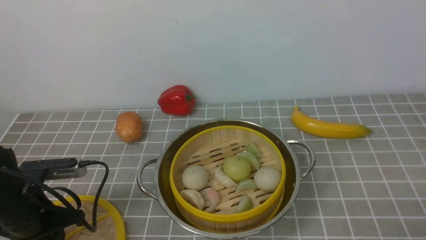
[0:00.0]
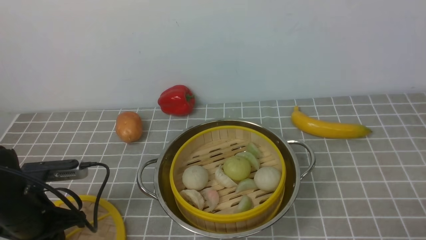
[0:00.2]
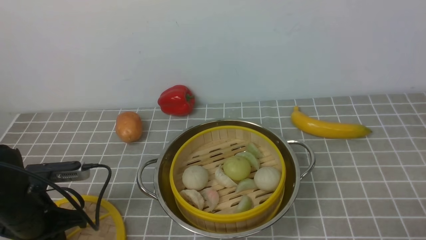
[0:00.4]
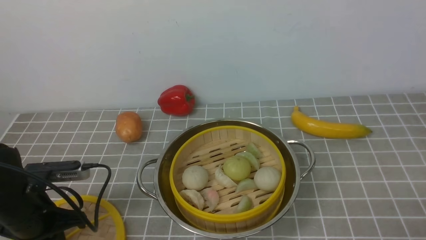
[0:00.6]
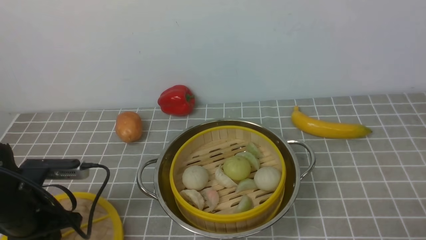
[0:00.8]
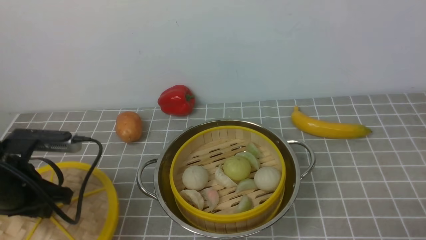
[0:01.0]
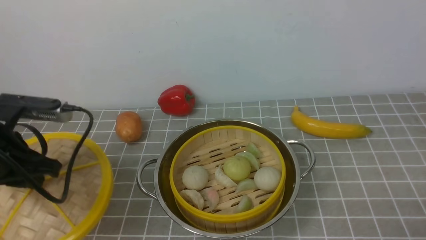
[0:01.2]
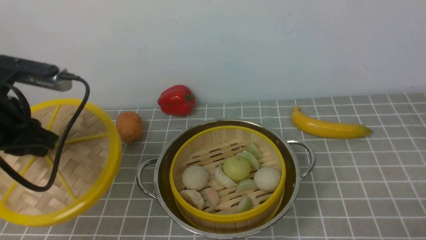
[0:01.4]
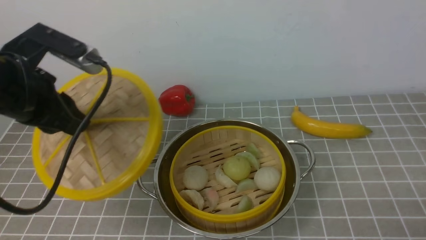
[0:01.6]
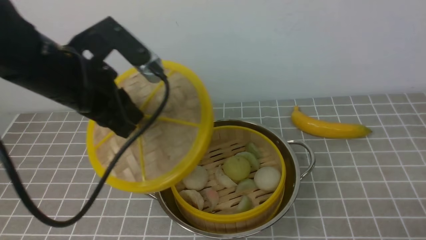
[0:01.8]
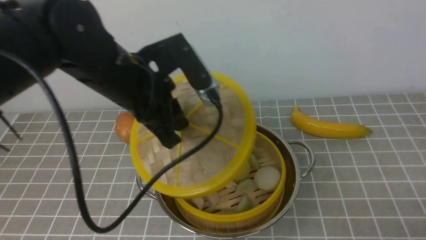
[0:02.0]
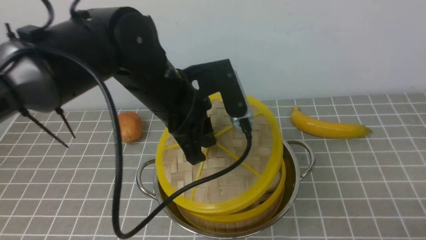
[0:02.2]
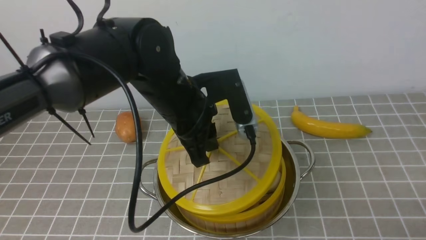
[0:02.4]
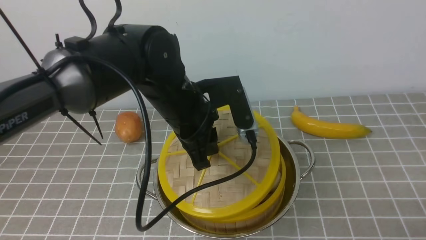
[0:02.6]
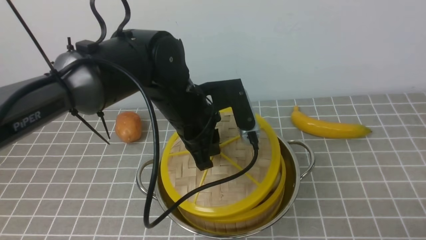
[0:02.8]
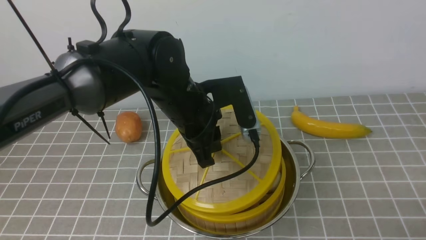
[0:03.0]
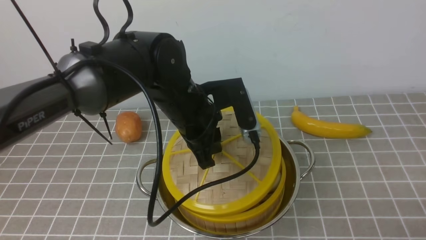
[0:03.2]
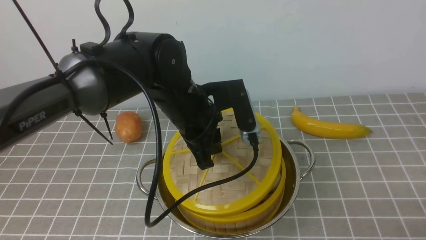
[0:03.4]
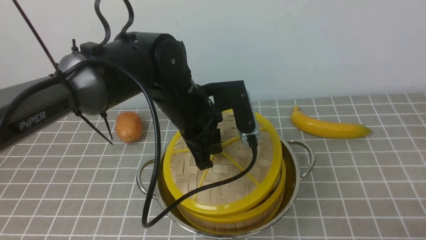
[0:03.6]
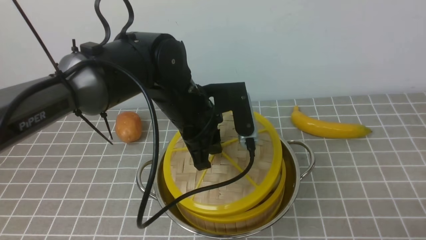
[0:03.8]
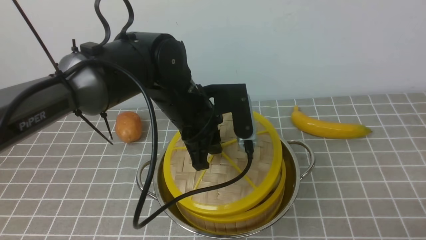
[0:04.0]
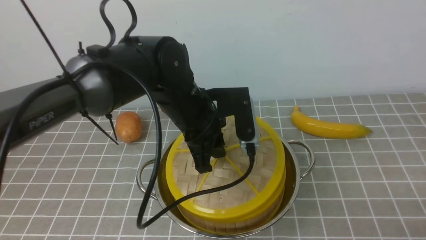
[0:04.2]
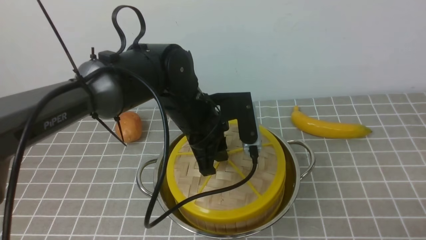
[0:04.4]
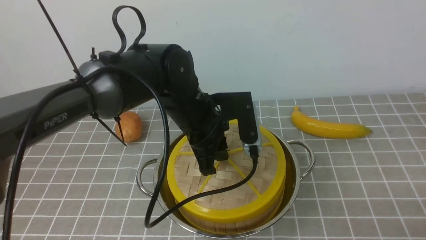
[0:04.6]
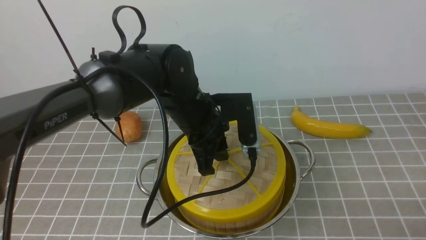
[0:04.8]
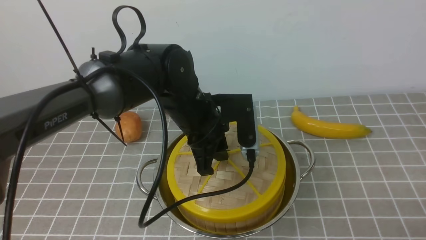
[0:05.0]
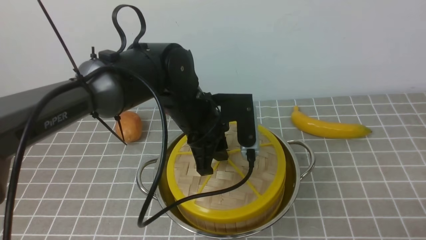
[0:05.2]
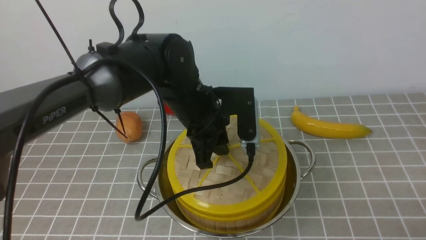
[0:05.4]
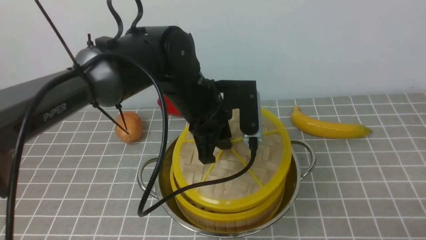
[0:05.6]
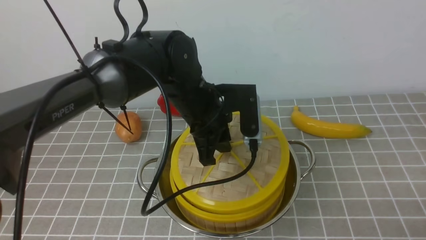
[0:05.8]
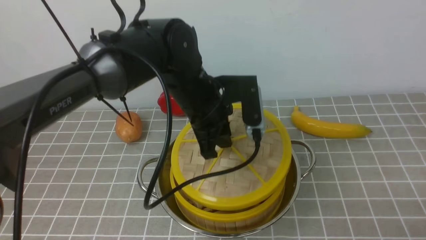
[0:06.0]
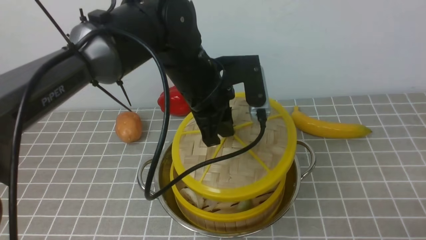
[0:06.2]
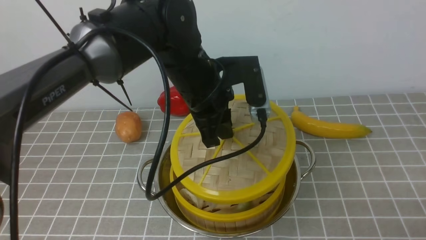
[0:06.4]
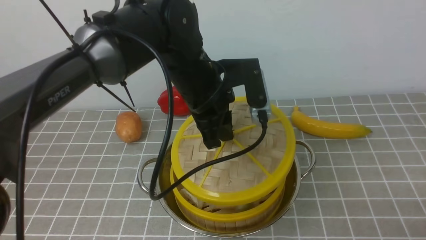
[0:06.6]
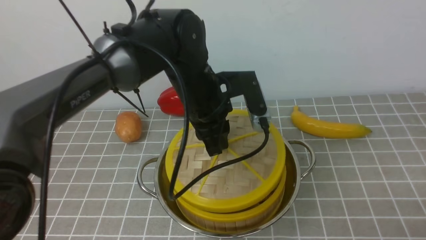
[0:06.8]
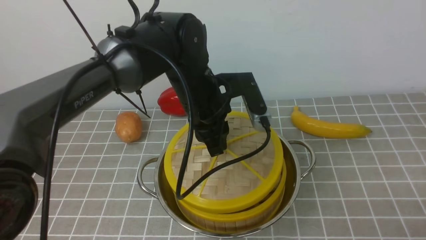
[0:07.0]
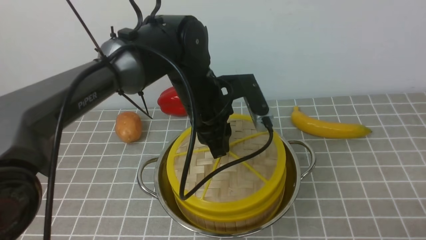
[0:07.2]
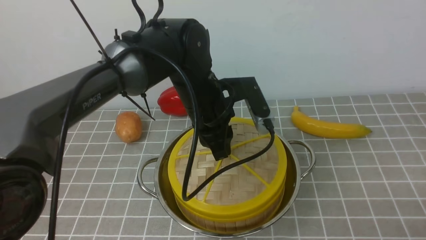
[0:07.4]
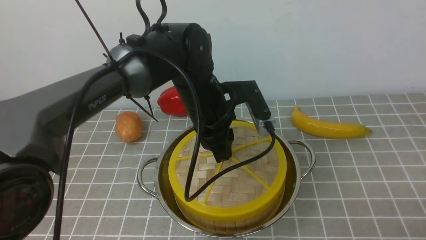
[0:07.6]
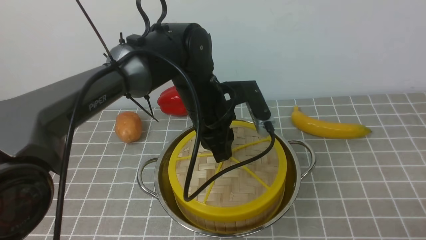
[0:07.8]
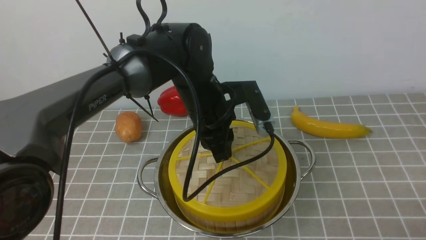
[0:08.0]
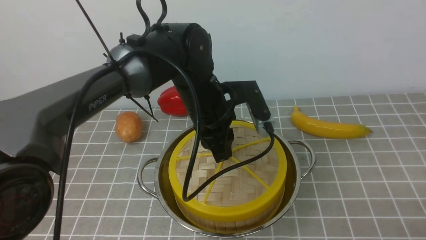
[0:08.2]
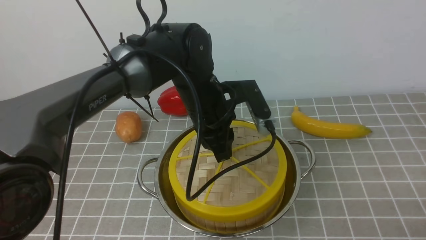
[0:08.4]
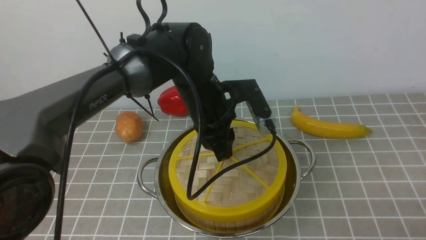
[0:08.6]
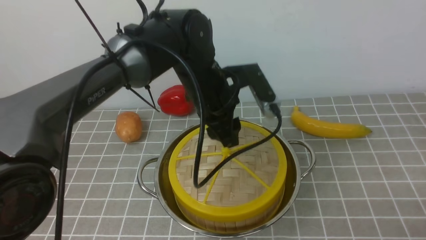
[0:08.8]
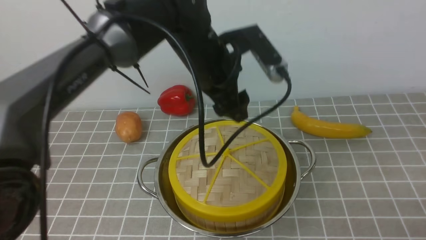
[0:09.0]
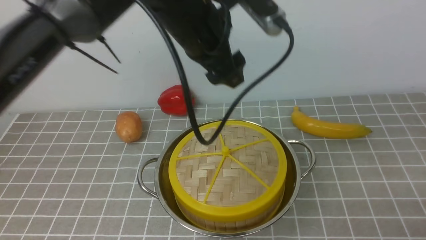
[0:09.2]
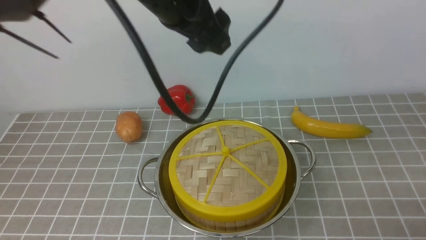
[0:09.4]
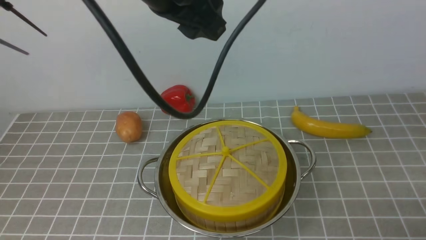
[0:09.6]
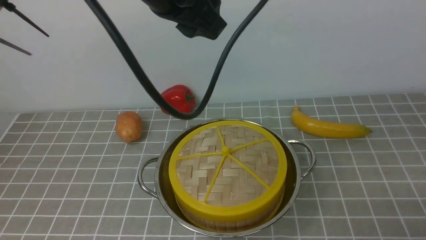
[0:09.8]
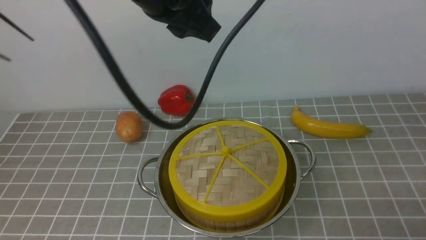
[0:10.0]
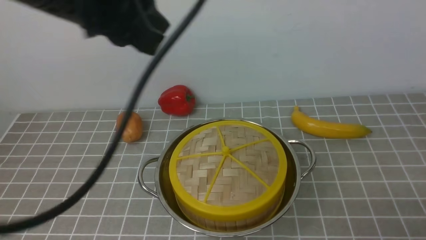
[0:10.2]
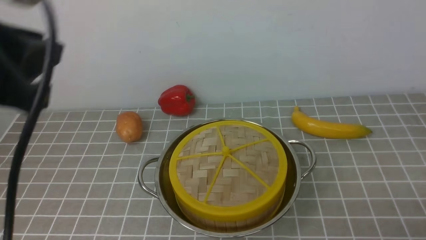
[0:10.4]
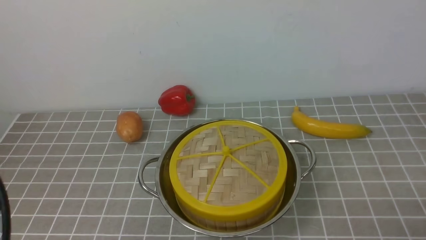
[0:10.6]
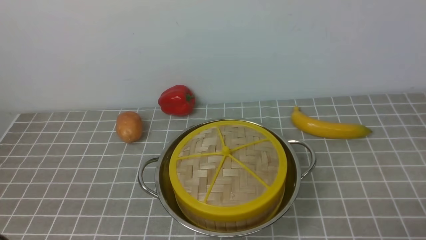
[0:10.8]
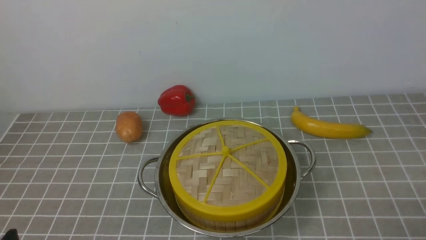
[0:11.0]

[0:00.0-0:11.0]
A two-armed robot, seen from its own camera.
Task of the whole recording: place the steamer in the pot on the grey tablecloth, and put the lid on the steamer.
Step, 0:01.0 to 0:08.6: use the left arm to place the steamer lid on the steamer.
0:00.0 to 0:01.6: The left gripper shifts approximately 15 cm upward.
0:01.6 to 0:03.2: The left gripper shifts roughly 20 cm to the right and downward.
0:03.2 to 0:04.8: There are only small adjustments of the grippers.
0:04.8 to 0:06.2: The left gripper ends up approximately 5 cm from where it was.
0:07.8 to 0:09.4: The left gripper heads upward, covering some 20 cm, and opens its fingers.
0:09.4 to 0:11.0: The left gripper heads backward, to the left and downward, covering some 40 cm, and closes.

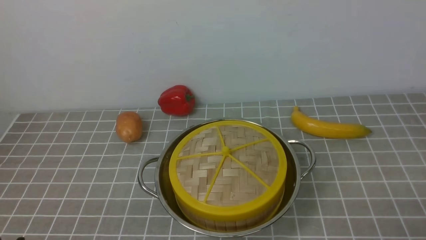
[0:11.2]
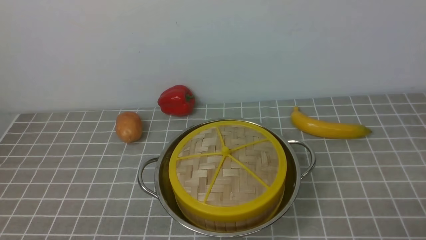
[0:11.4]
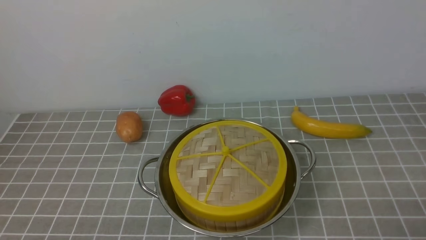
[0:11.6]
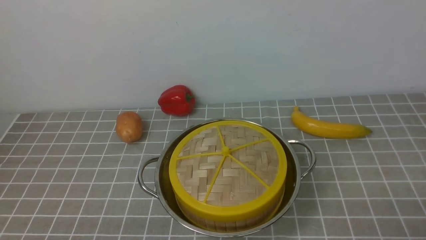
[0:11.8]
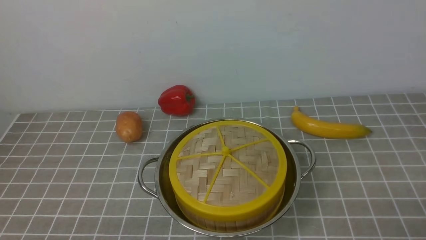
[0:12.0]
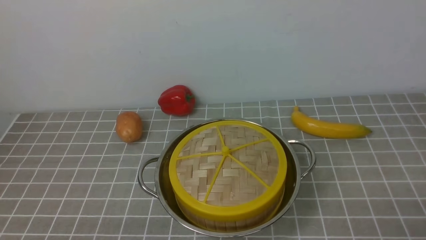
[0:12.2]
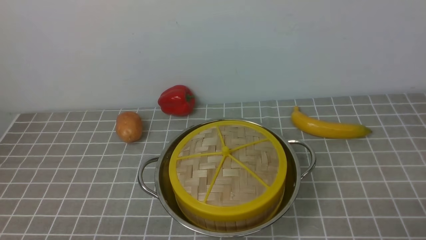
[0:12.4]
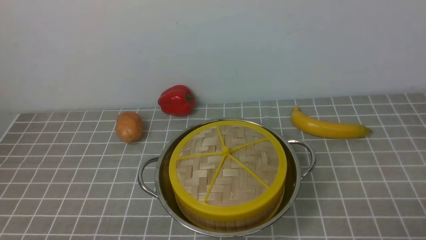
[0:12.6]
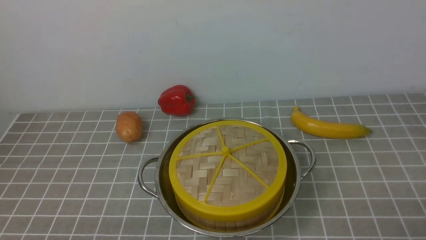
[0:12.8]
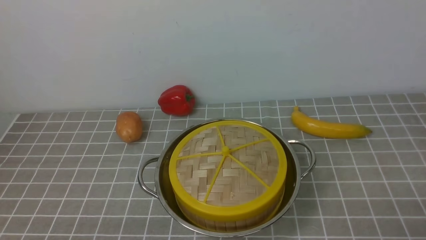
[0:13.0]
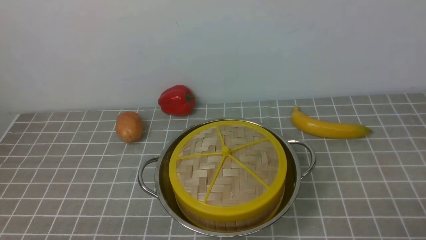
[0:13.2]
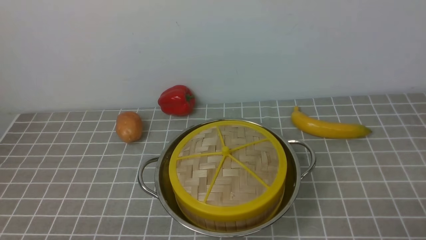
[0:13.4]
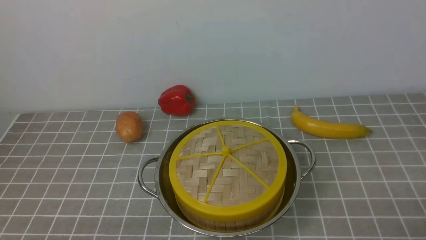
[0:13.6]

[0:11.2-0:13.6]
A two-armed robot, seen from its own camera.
Task of the whole recording: place the steamer in the pot on the grey tablecloth, and put the lid on the steamer.
0:12.4 to 0:13.6: Both grippers stay put.
